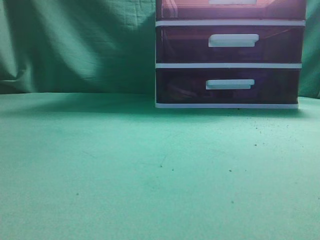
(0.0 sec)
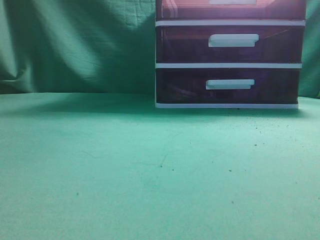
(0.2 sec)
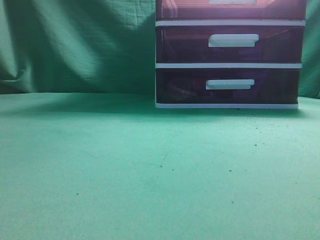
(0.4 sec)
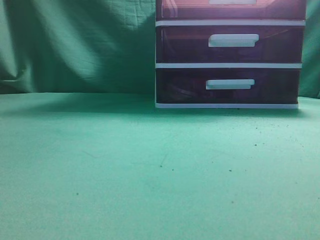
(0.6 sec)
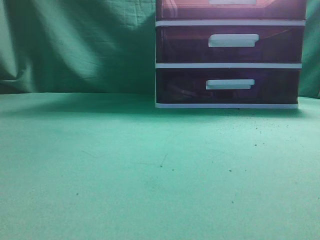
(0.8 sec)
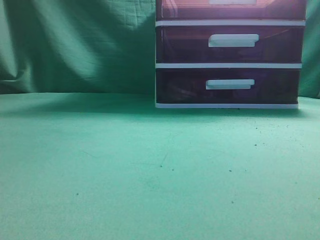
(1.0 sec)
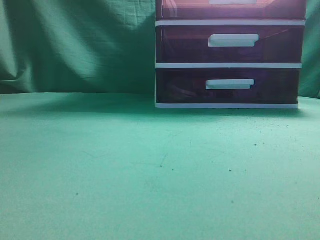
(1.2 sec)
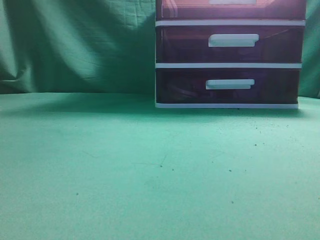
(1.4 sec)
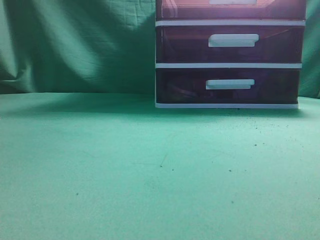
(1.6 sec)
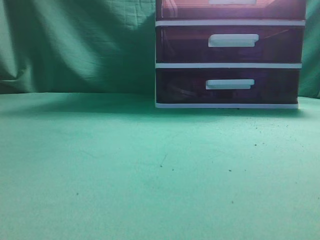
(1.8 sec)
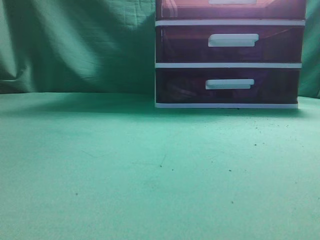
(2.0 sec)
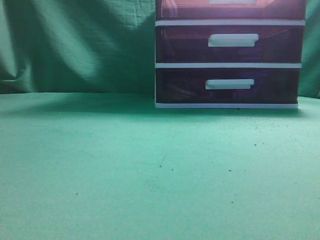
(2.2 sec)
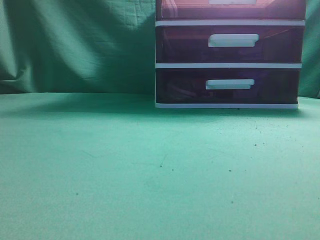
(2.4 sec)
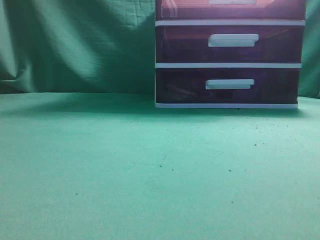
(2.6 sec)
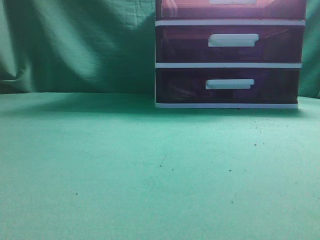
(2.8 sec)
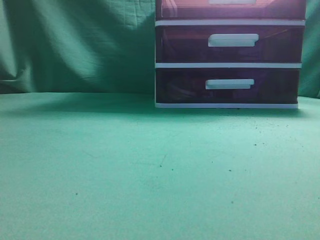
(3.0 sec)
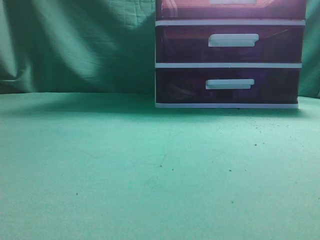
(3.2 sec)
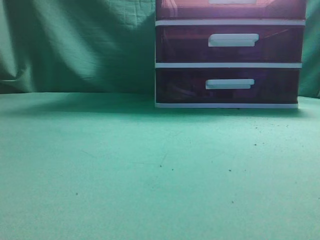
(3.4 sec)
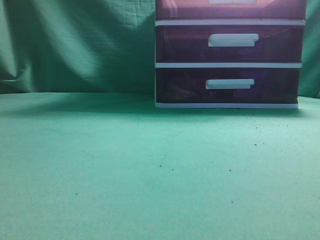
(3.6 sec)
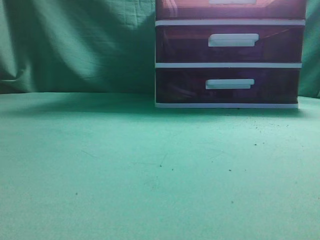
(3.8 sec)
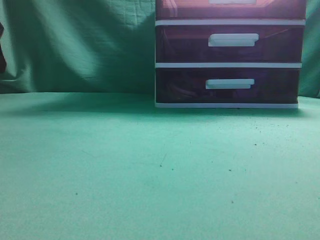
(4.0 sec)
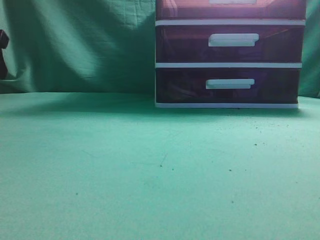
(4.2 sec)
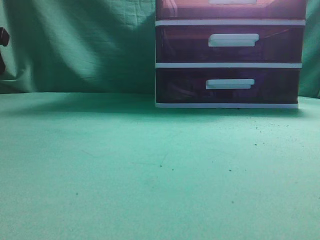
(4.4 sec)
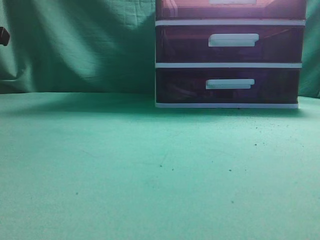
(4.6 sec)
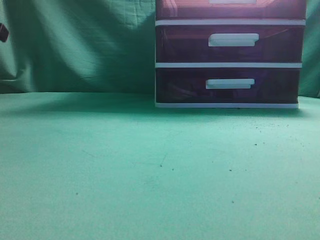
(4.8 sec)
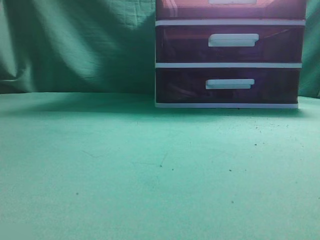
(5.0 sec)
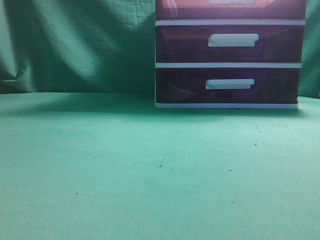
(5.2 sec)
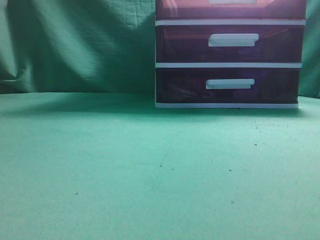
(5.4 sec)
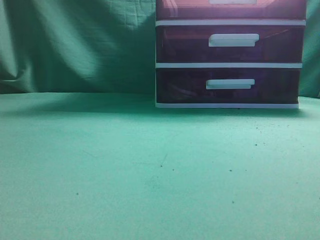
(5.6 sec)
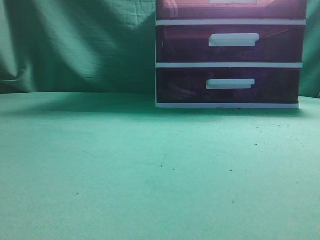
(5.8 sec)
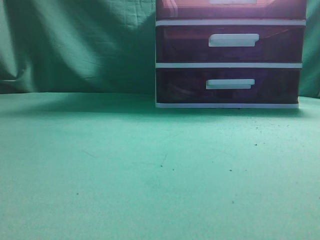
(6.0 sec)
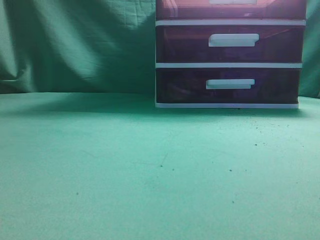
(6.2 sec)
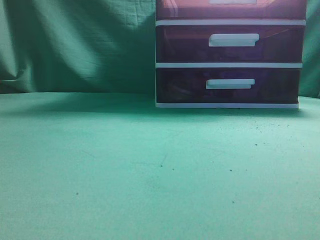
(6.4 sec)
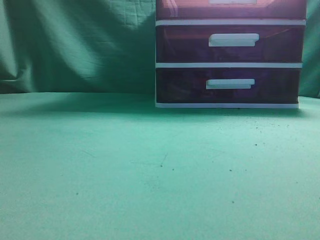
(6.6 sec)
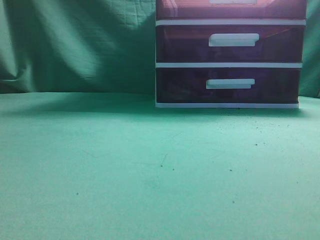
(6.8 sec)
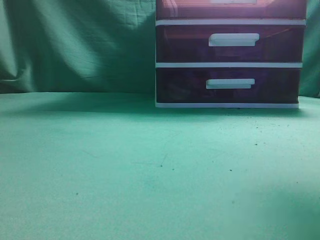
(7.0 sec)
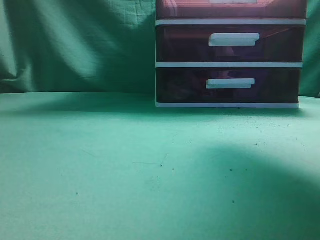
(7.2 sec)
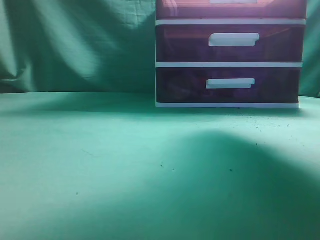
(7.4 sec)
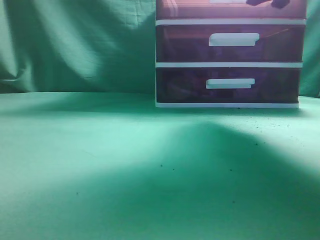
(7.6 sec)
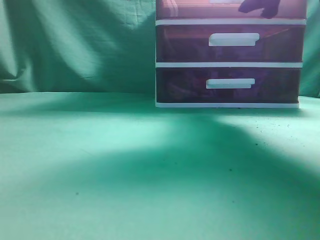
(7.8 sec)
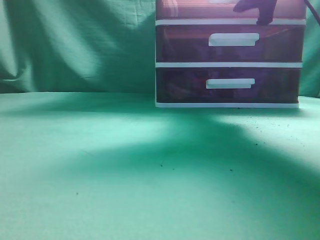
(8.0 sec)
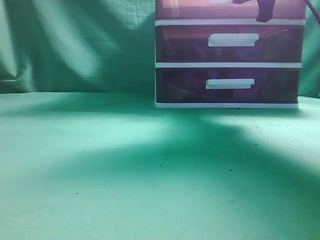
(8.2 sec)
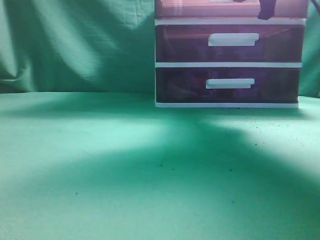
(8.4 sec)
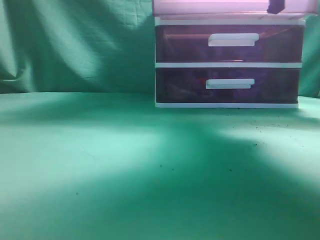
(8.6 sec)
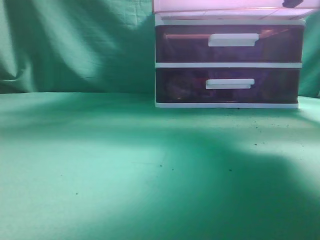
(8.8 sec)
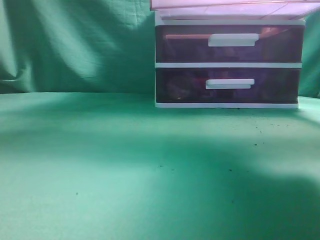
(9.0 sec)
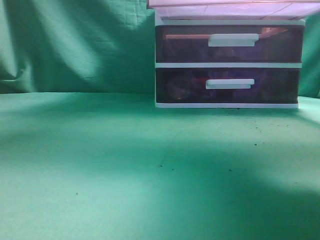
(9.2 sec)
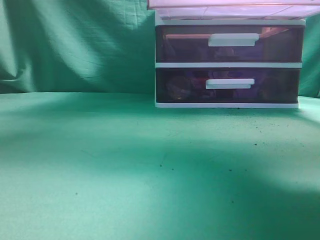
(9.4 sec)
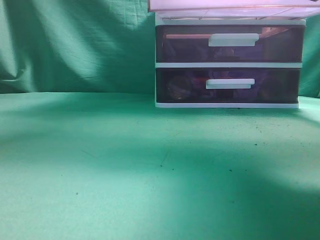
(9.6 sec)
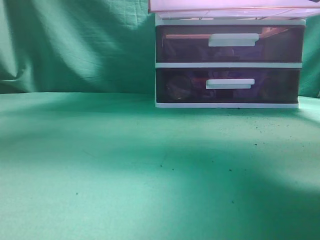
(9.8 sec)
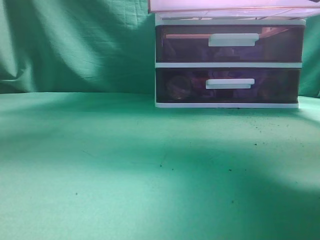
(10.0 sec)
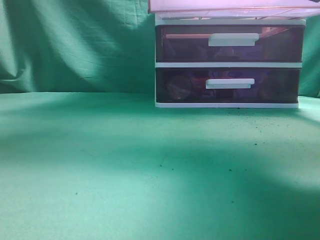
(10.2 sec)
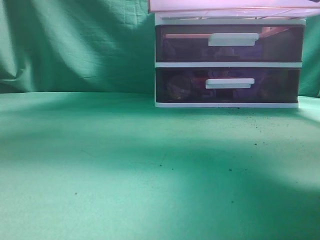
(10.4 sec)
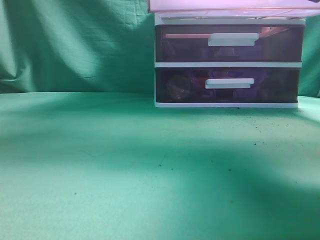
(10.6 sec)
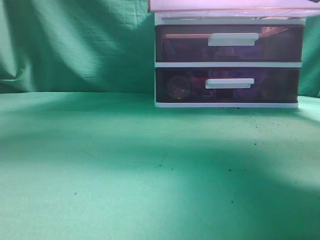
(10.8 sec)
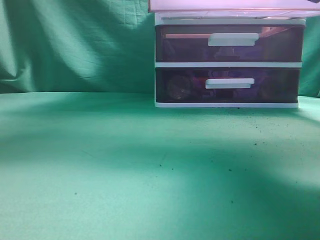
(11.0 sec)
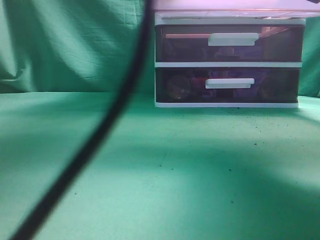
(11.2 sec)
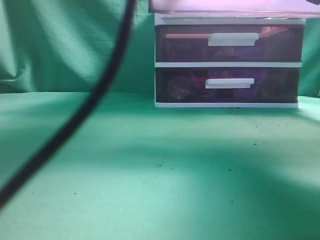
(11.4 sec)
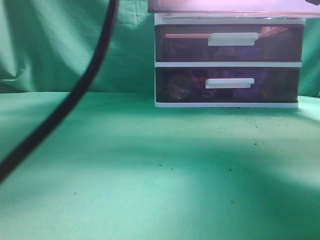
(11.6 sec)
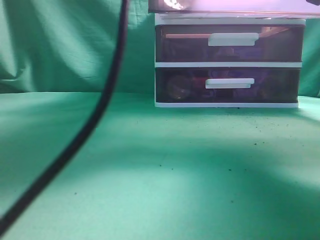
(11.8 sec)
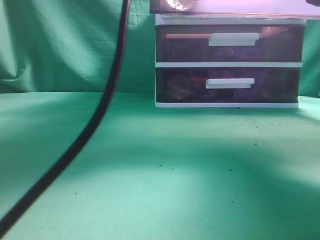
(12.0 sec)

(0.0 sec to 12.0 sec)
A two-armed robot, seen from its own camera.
Task of the whole recording: place the water bottle into the drawer.
Step, 0.0 sec - 9.2 sec: Open the drawer.
6.0 sec - 7.6 sec: The right gripper goes roughly 35 cm forward, and opens up.
7.6 sec - 9.0 sec: The right gripper shifts roughly 10 cm backward, and closes its fingers.
9.0 sec - 10.4 sec: The left gripper is displaced forward, to the right and upward by about 20 cm.
10.4 sec - 12.0 sec: The left gripper travels to the right, forward and downward by roughly 20 cm.

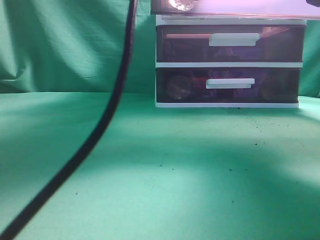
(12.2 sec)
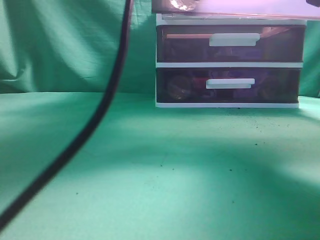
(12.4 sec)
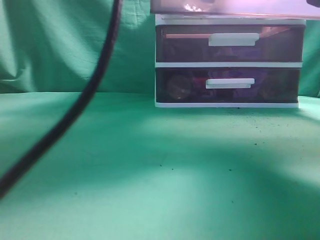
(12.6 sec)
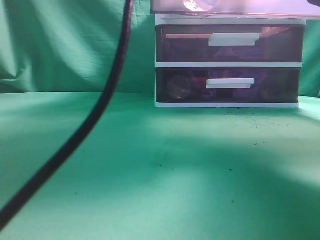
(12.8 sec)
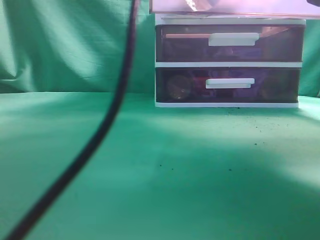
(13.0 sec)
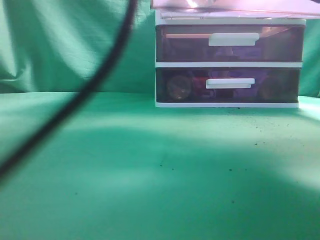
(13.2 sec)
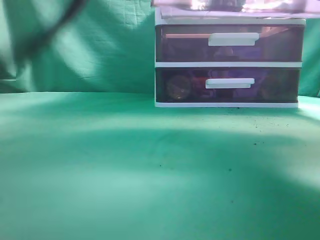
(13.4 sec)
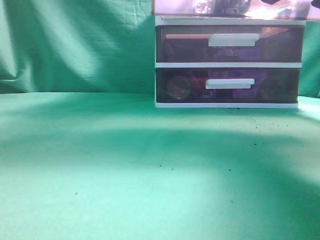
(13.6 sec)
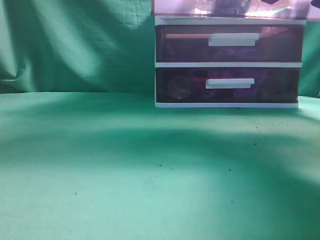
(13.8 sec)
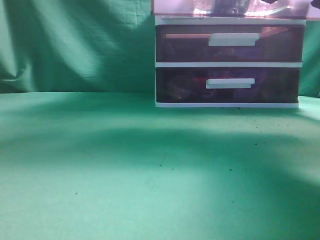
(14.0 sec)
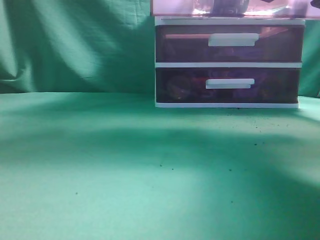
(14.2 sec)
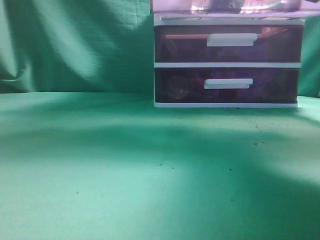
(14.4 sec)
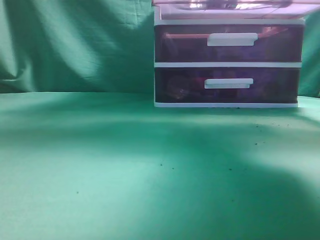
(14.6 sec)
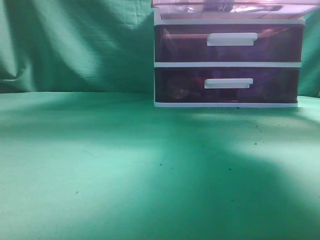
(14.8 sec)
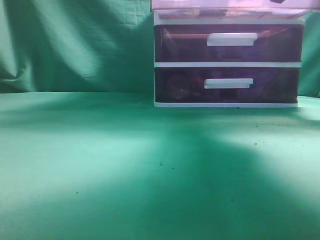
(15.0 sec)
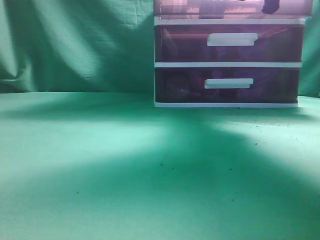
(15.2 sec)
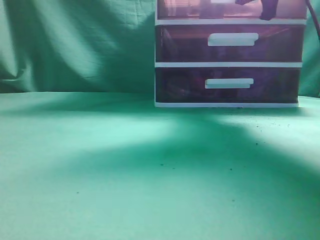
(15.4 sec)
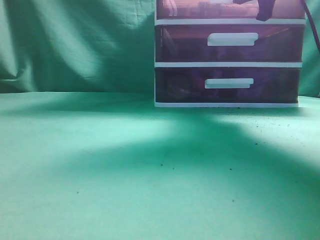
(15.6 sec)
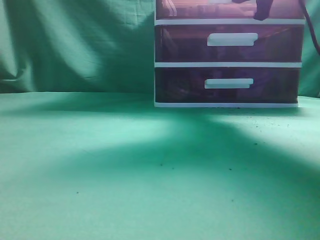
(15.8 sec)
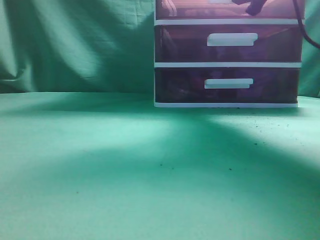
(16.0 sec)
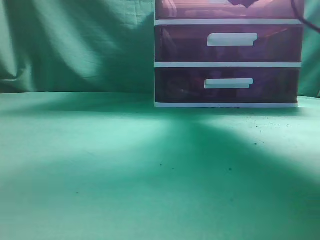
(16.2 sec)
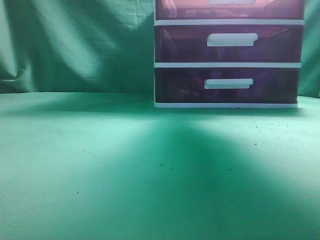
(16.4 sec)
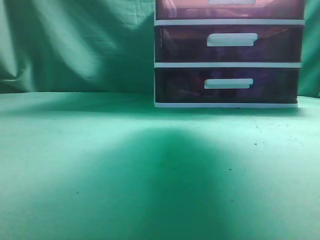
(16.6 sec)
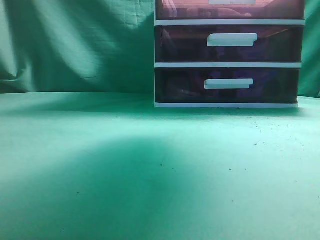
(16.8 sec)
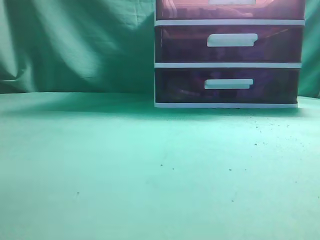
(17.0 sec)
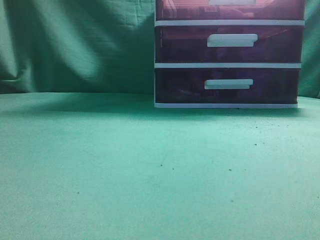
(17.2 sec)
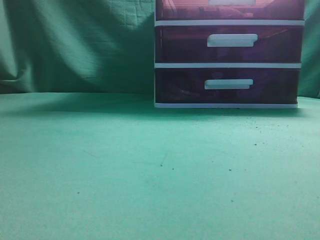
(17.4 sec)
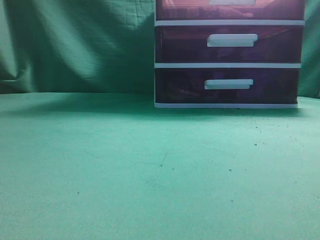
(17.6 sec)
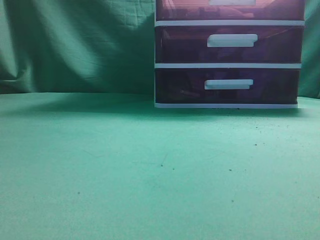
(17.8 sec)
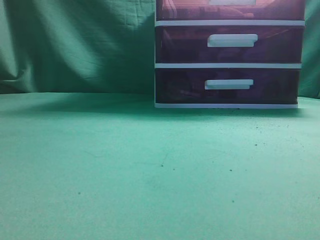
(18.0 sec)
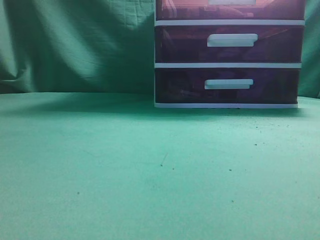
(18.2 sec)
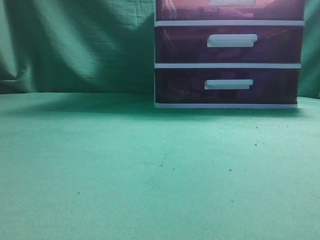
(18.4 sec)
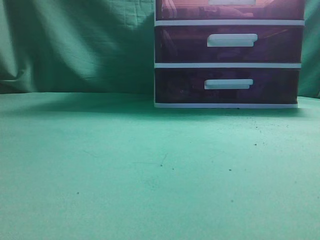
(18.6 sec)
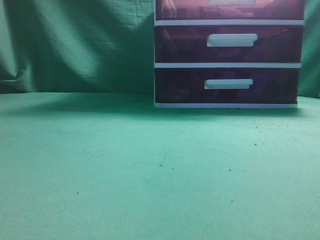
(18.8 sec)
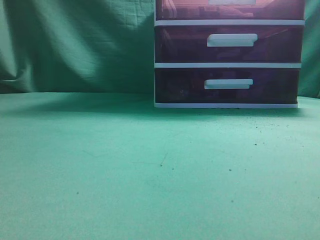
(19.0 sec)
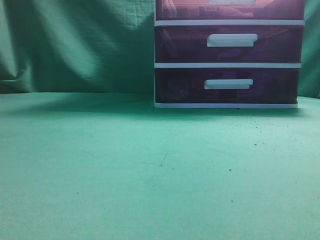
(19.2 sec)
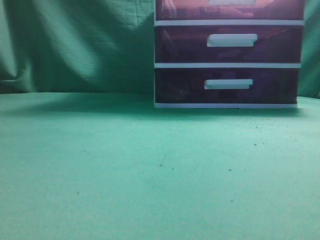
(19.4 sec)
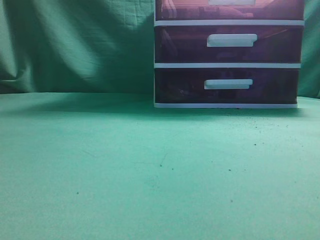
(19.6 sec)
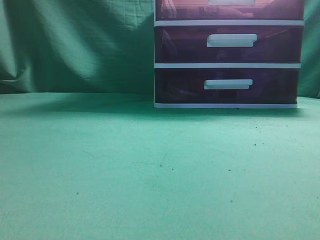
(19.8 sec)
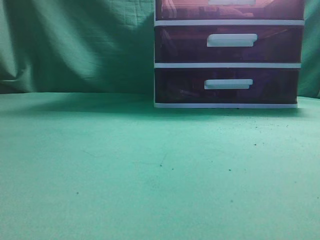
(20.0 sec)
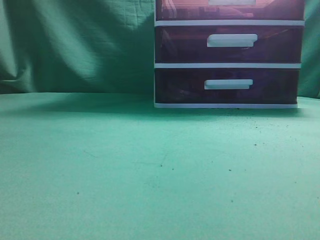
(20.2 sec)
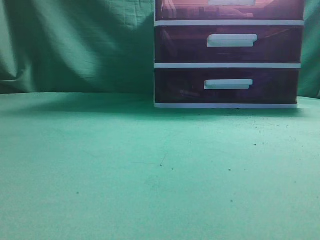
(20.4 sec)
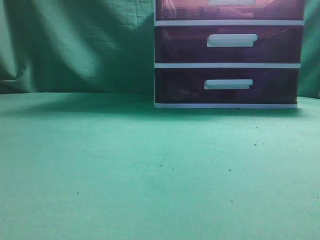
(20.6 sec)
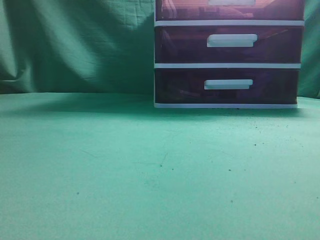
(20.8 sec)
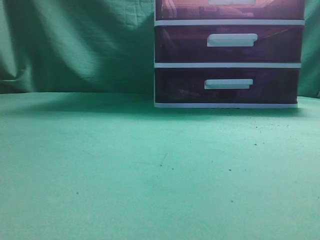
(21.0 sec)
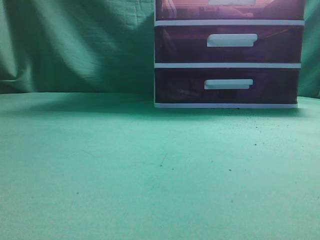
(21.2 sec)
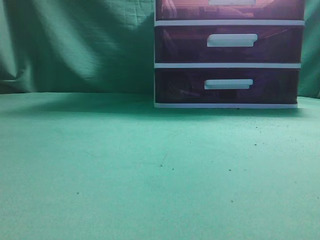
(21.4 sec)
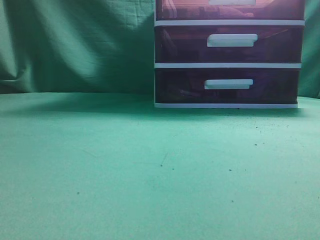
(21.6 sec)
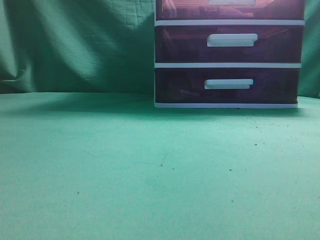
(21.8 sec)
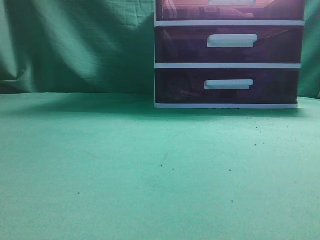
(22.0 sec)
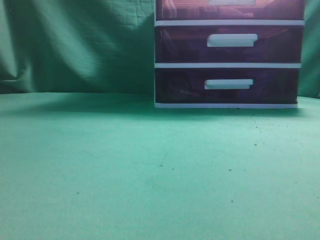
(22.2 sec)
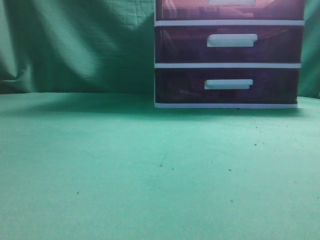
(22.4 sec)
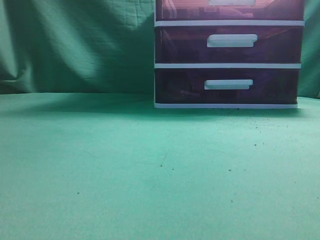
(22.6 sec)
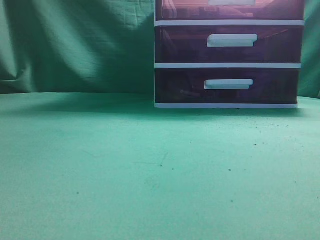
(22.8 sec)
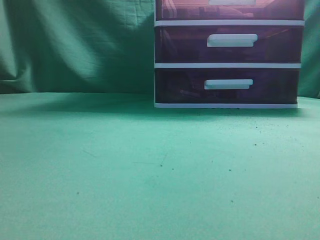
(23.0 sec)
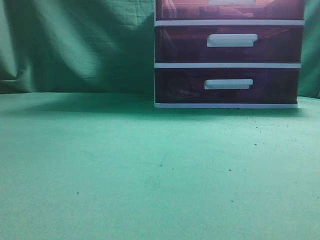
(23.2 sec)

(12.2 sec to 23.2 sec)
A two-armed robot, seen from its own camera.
Task of the whole recording: place the water bottle into the drawer.
Step, 13.8 sec - 16.6 sec: Close the drawer.
12.2 sec - 13.8 sec: The left gripper shifts roughly 10 cm upward, and opens and closes again.
13.8 sec - 15.4 sec: The right gripper shifts about 15 cm forward. Meanwhile the left gripper goes some 30 cm to the left and backward, and closes up.
15.4 sec - 17.0 sec: The right gripper goes some 15 cm backward, upward and to the left, and opens.
17.0 sec - 18.4 sec: The right gripper is displaced backward by about 25 cm, and closes its fingers, while the left gripper shifts some 20 cm backward, to the left and downward.
